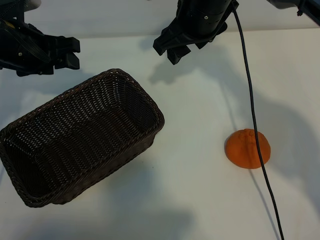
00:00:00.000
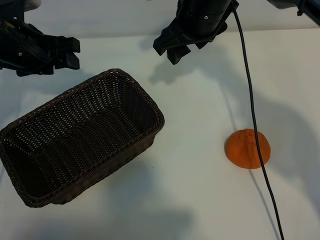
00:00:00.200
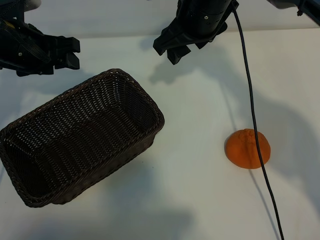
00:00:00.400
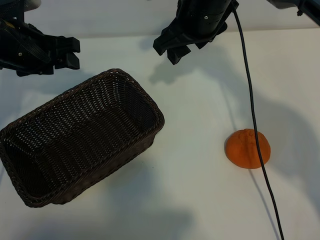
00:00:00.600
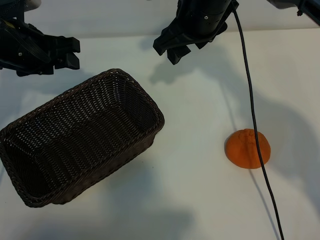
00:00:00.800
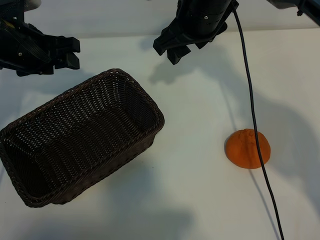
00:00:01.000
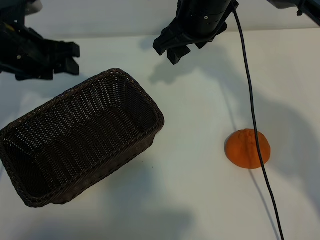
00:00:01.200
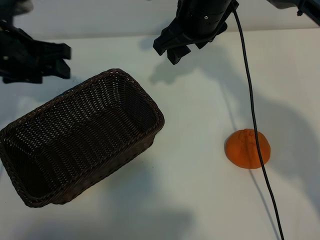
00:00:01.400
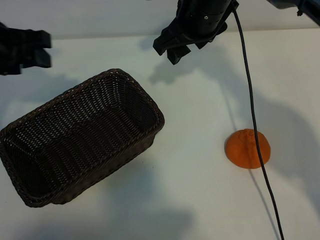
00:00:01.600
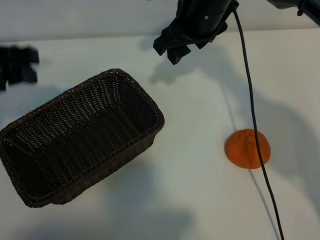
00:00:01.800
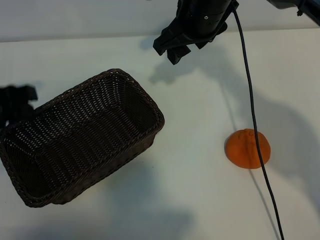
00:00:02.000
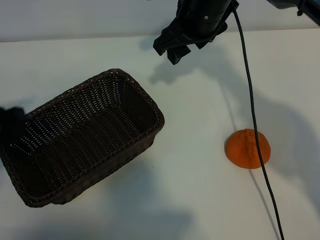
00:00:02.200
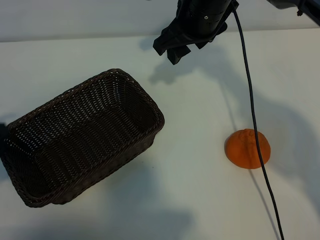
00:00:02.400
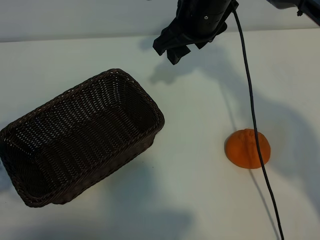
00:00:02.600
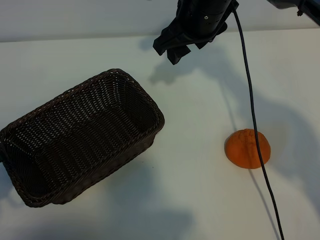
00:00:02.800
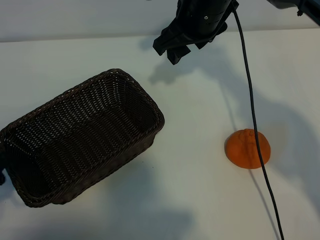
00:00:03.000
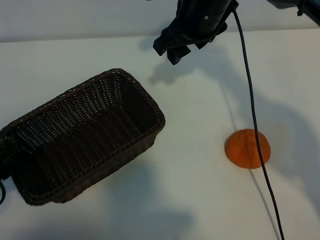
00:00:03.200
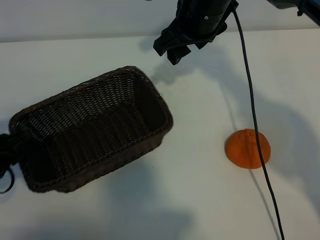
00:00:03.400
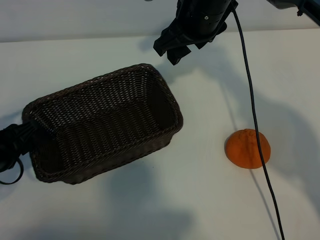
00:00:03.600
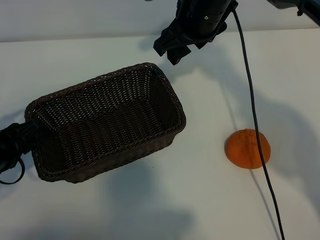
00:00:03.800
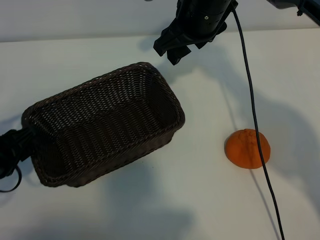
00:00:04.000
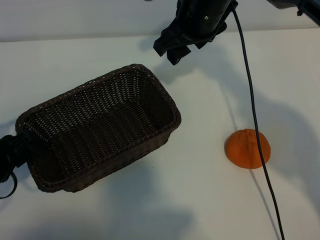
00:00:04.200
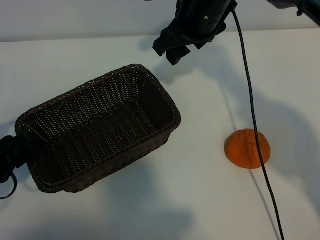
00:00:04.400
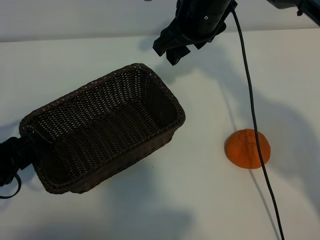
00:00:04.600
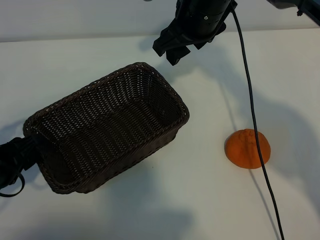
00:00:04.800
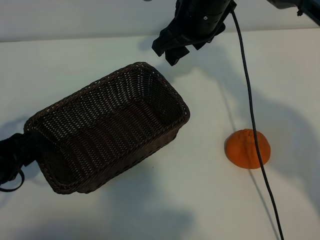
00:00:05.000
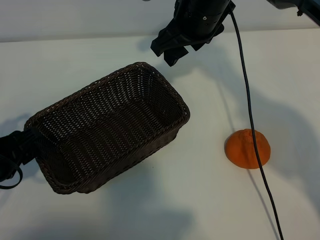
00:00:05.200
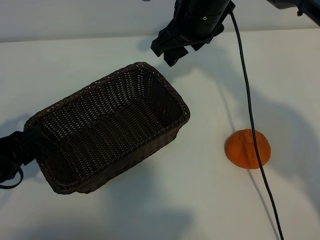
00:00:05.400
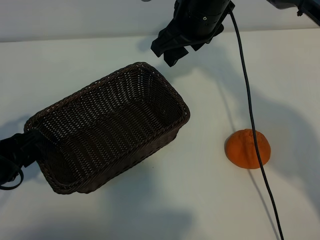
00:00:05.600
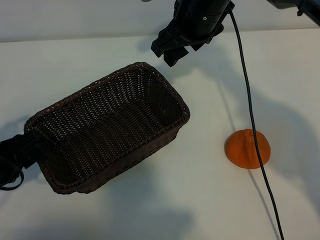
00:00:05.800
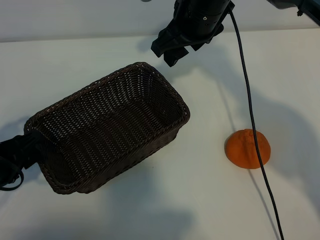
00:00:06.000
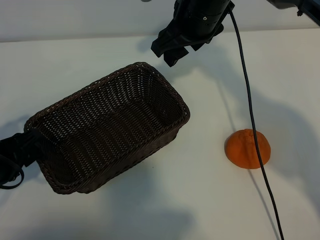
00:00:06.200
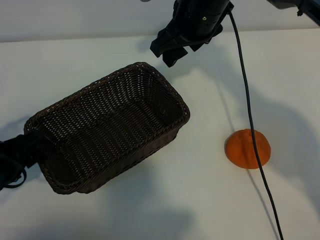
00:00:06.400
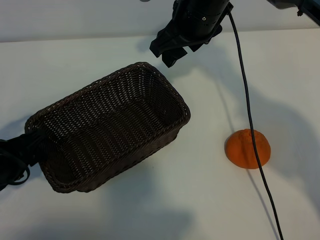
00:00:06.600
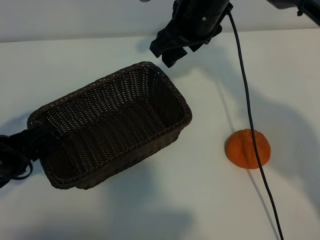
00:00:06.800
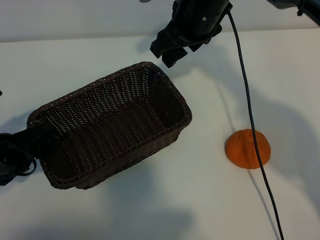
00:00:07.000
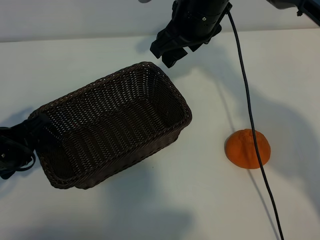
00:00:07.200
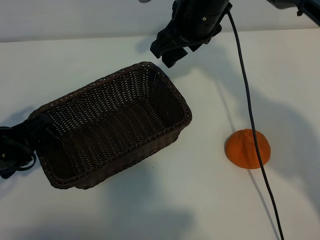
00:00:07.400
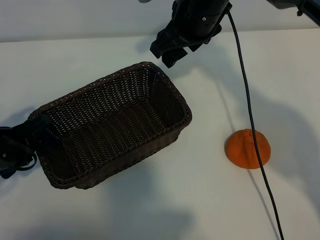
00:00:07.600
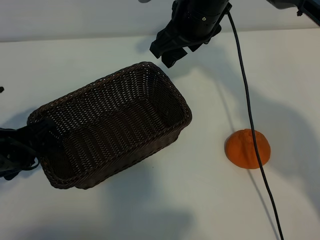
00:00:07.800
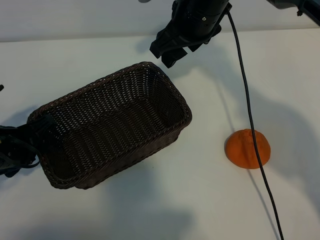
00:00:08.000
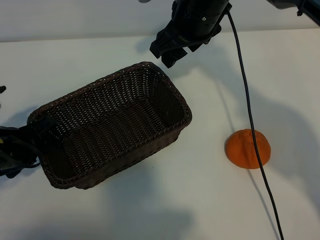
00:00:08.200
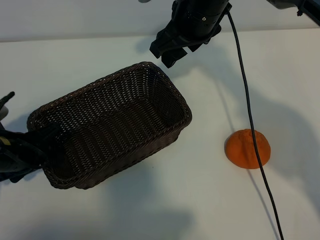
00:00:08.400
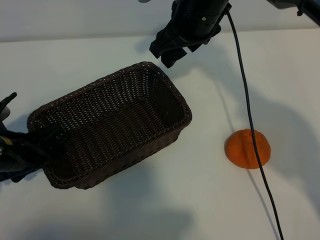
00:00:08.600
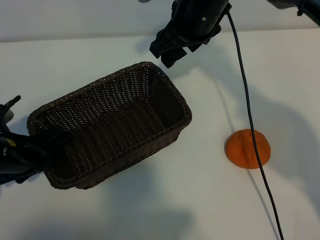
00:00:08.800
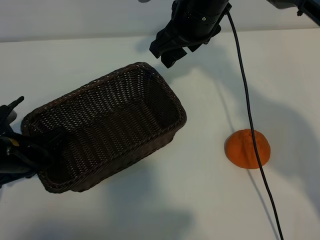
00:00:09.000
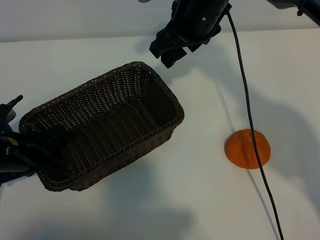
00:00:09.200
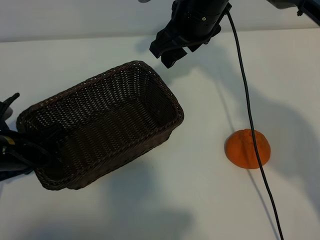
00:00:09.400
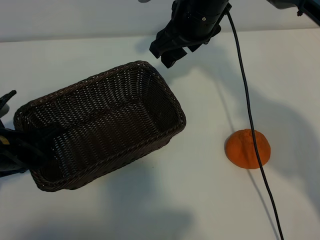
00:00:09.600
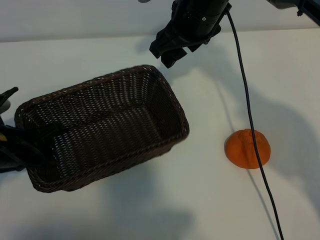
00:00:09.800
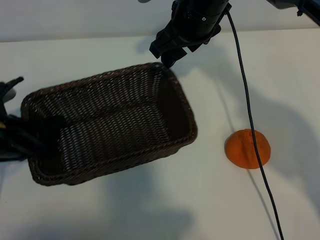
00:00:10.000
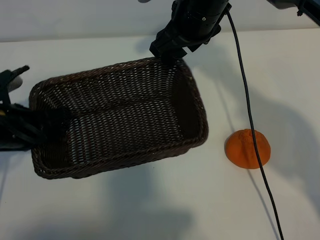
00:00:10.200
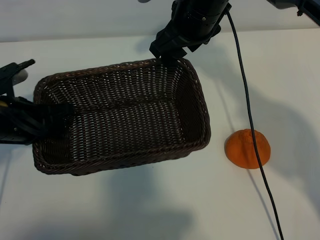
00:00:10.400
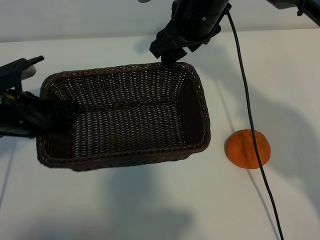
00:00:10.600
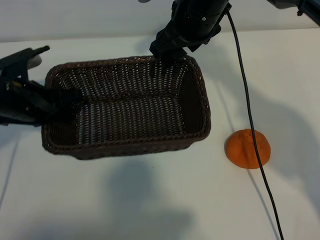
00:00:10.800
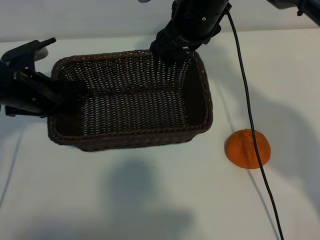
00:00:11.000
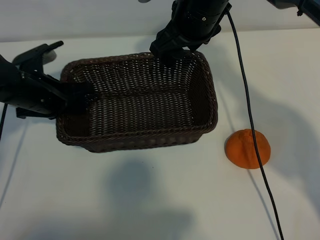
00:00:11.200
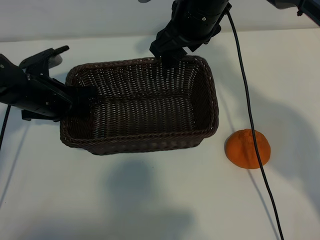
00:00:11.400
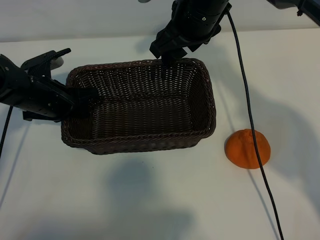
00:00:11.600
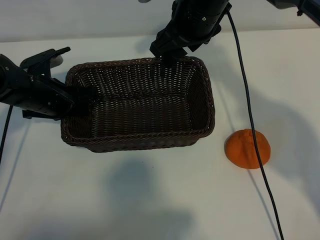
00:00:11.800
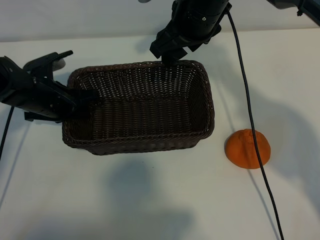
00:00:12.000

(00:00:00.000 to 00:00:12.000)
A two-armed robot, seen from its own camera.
Task of the whole recording: pick up the orange and put it into the basket.
Step, 00:00:01.200 - 00:00:09.000: Grasp the basket with left gripper.

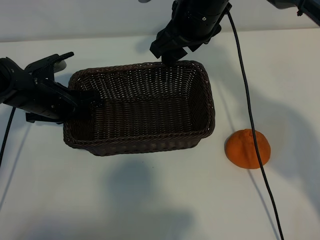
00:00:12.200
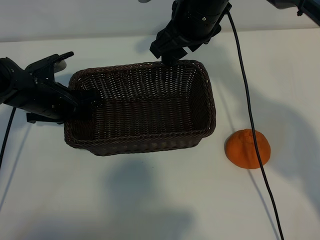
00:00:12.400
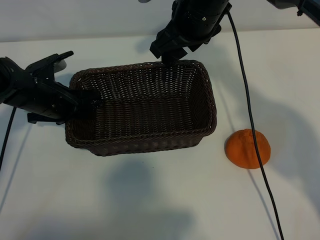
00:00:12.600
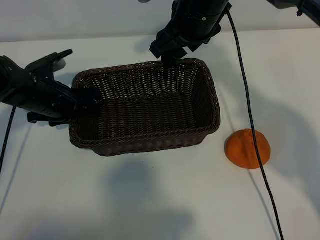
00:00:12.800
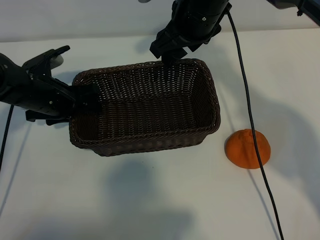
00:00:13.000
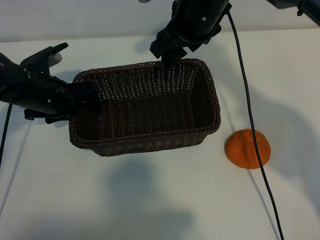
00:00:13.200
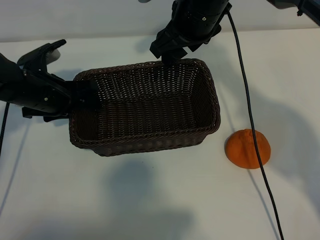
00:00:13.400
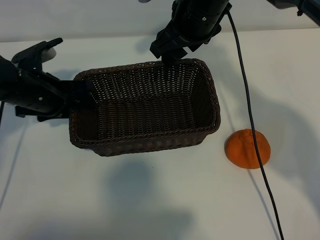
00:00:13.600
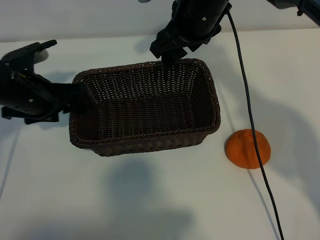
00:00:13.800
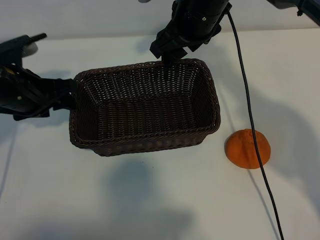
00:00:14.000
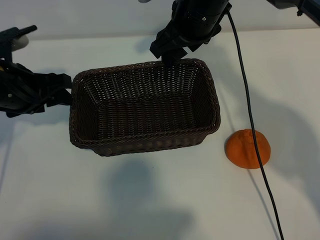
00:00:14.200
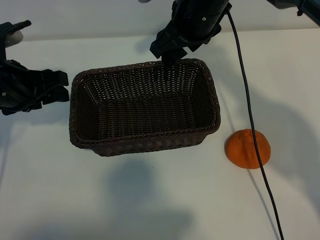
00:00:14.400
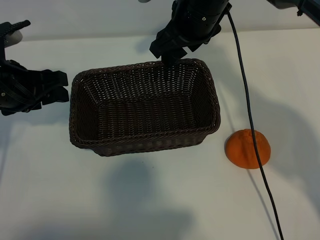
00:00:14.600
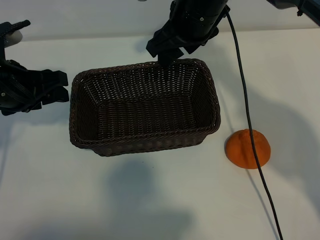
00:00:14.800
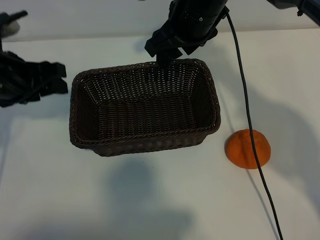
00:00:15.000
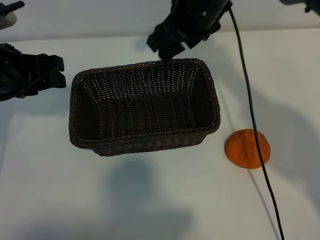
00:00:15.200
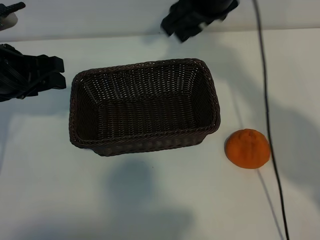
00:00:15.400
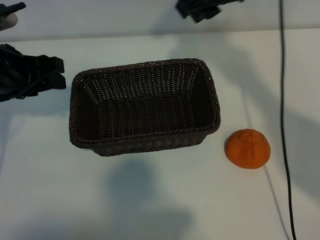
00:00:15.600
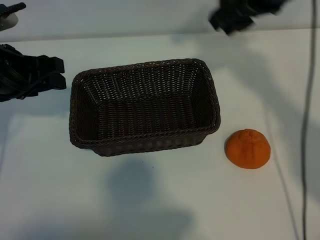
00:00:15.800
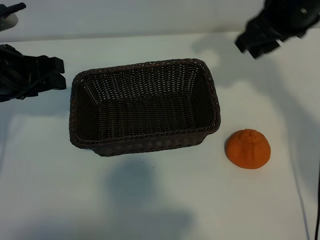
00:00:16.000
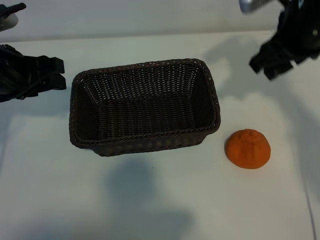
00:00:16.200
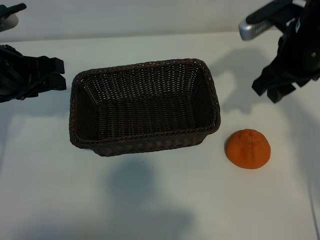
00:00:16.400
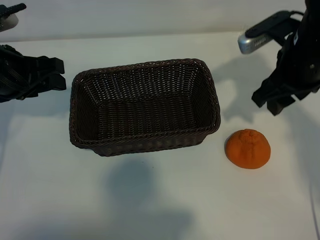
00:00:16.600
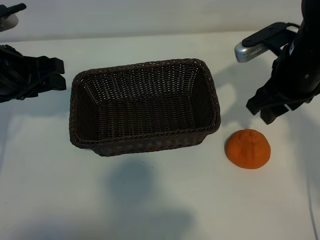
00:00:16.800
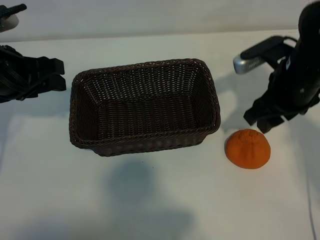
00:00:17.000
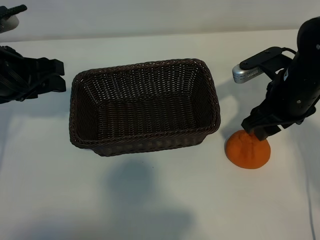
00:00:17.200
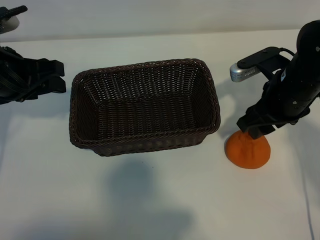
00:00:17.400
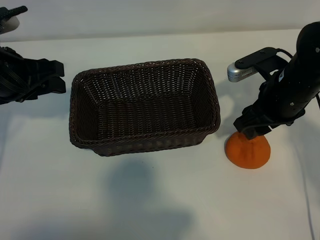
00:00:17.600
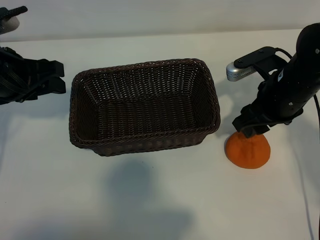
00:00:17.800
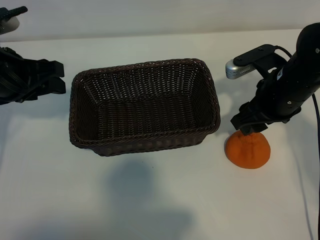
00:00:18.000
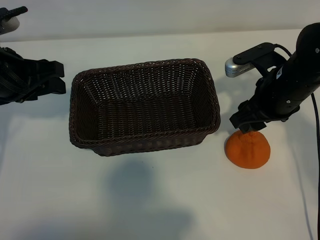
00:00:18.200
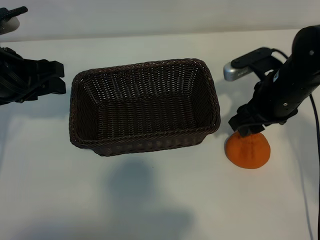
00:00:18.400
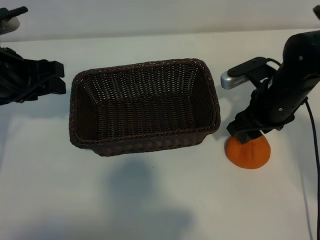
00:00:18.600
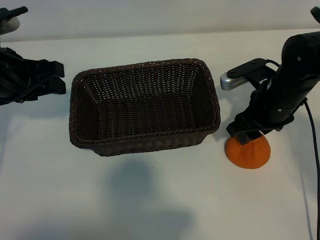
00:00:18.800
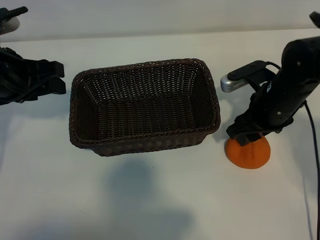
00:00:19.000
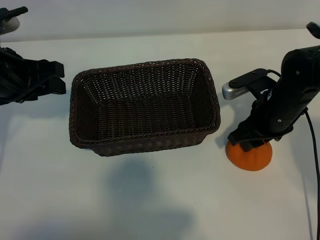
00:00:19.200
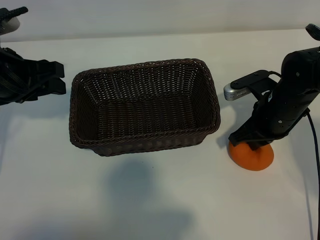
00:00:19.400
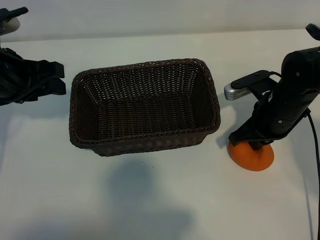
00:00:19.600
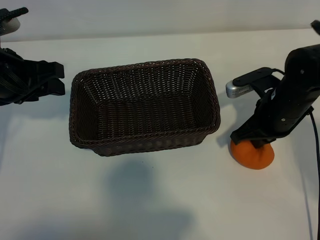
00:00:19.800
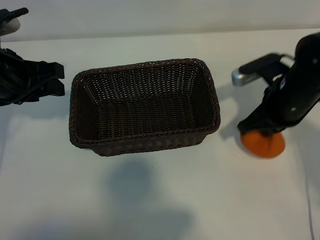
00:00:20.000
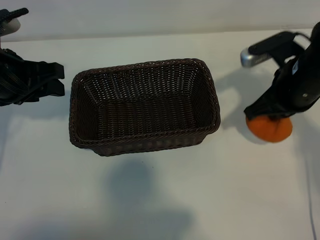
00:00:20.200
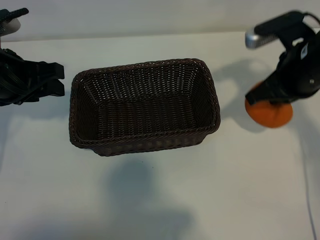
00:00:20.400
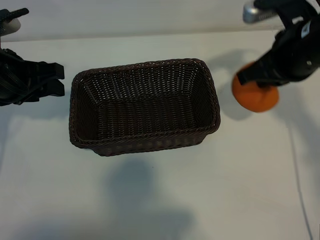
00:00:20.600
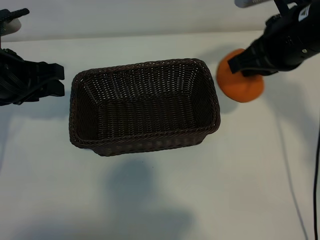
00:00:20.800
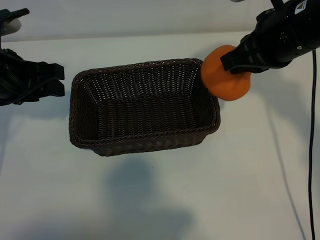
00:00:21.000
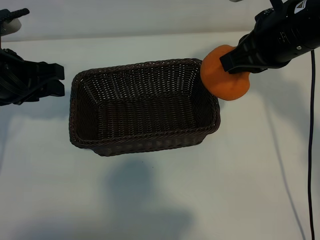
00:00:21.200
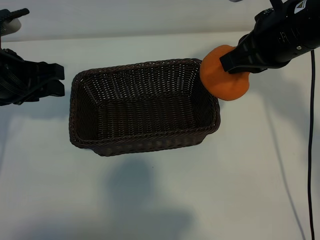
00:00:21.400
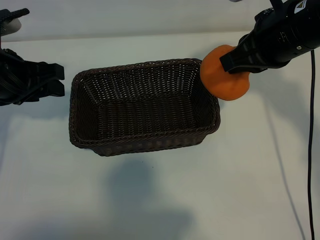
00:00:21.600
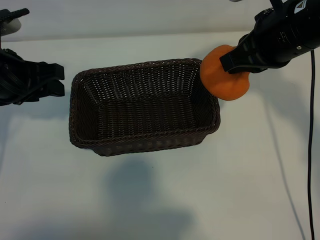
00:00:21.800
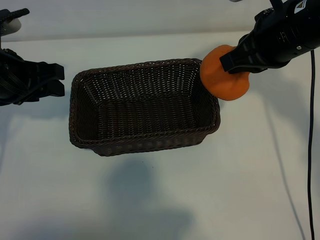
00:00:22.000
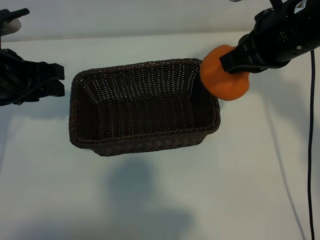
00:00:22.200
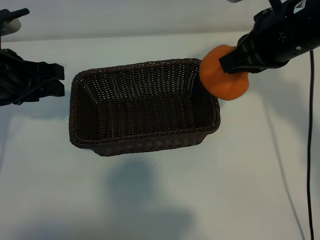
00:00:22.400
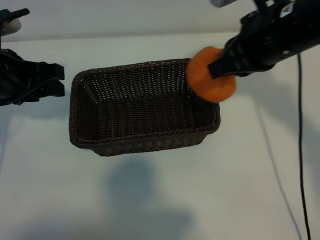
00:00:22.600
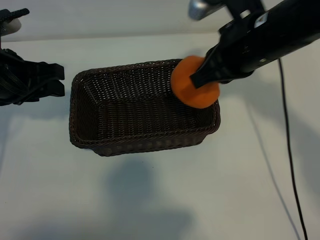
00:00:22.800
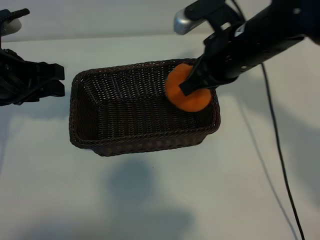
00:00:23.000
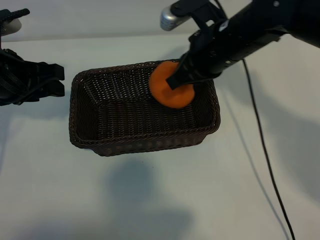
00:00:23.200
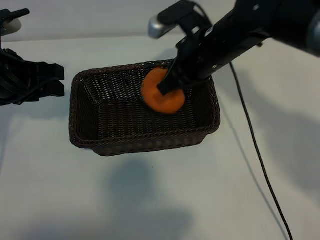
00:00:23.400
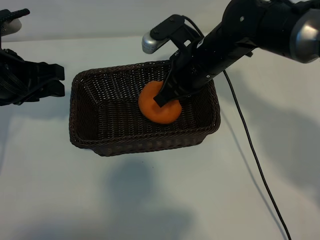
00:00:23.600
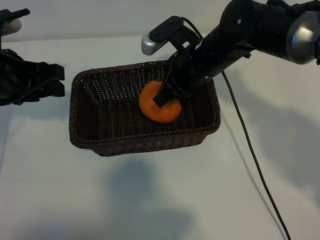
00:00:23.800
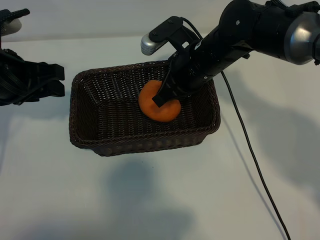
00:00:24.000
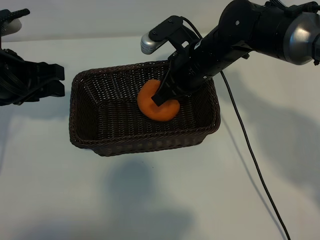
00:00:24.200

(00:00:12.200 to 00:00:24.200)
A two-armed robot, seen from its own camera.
Task of the whole recording: pick up the orange and put it into the basket.
Step, 00:00:13.200 - 00:00:19.400: Grasp the orange with right gripper.
